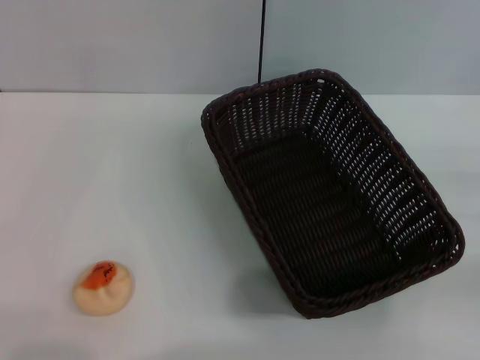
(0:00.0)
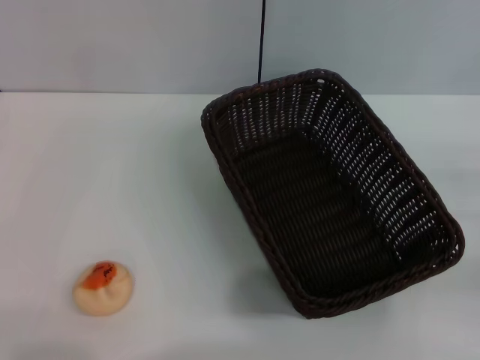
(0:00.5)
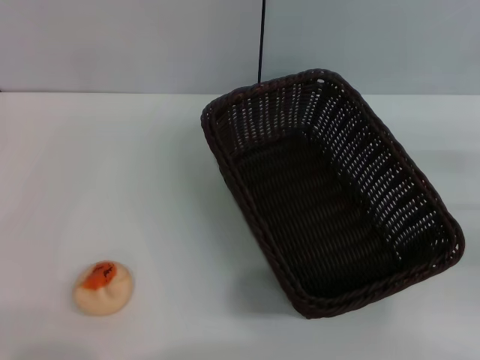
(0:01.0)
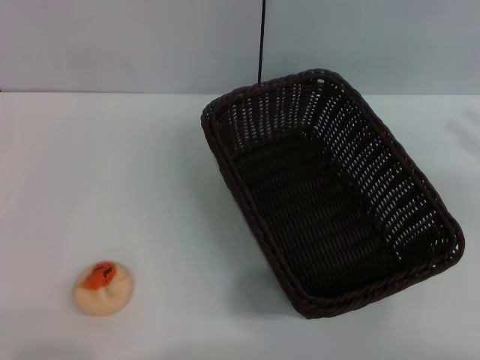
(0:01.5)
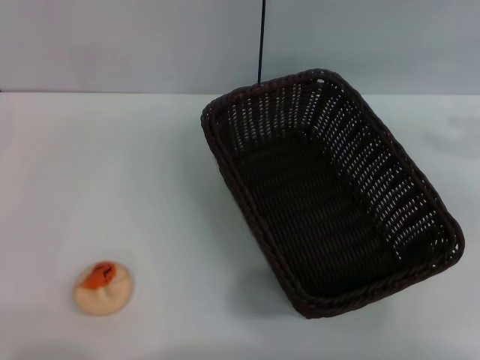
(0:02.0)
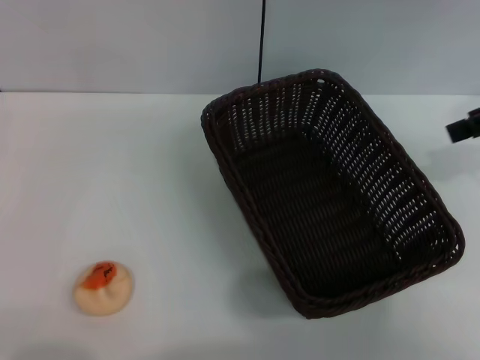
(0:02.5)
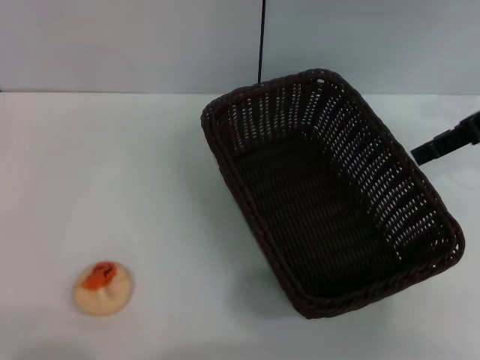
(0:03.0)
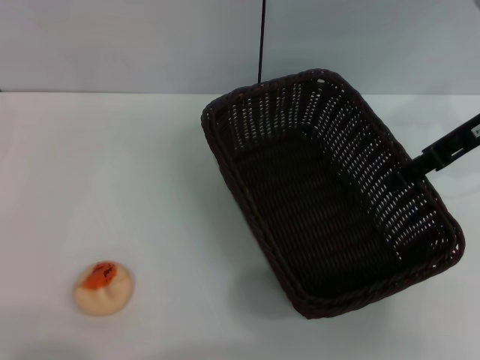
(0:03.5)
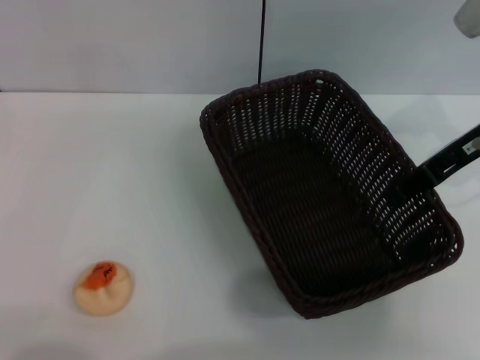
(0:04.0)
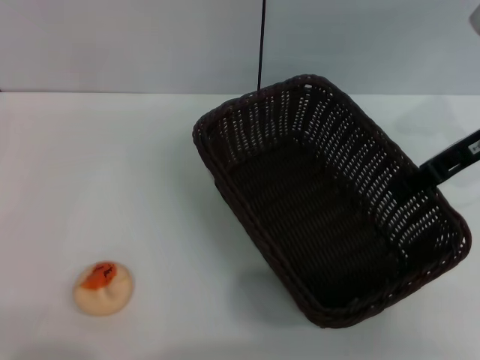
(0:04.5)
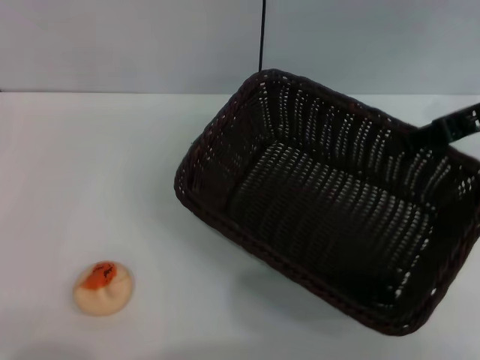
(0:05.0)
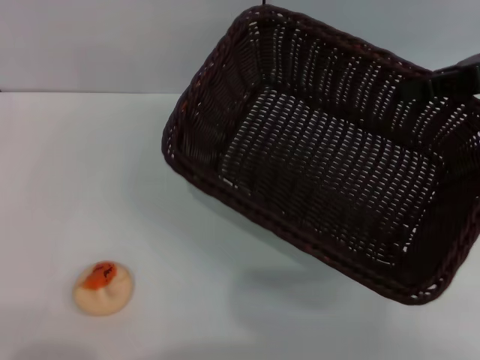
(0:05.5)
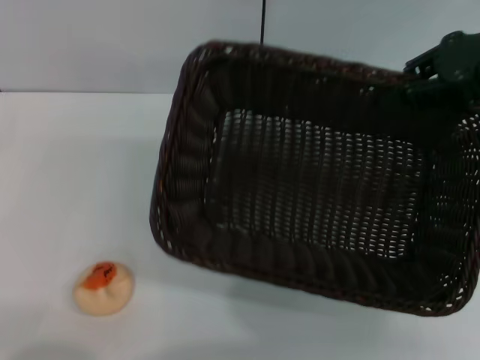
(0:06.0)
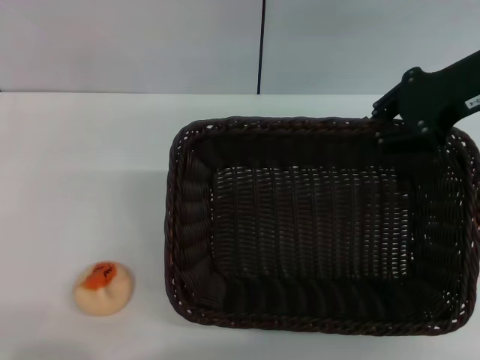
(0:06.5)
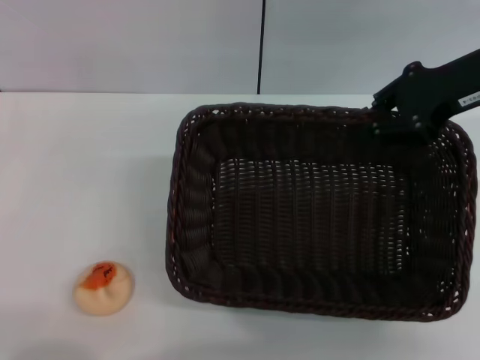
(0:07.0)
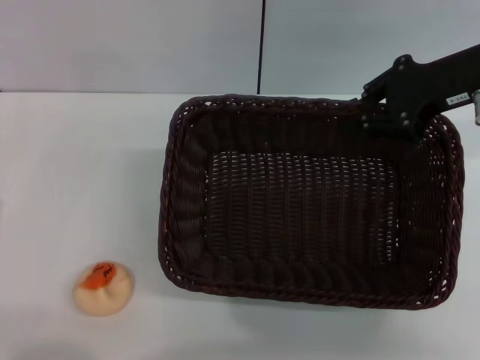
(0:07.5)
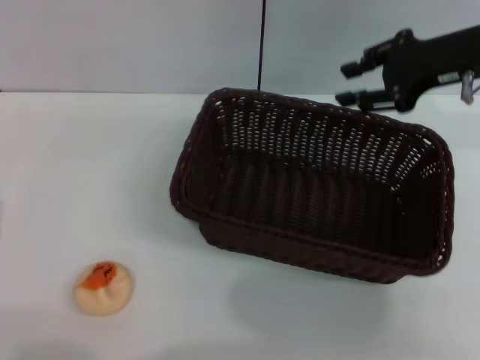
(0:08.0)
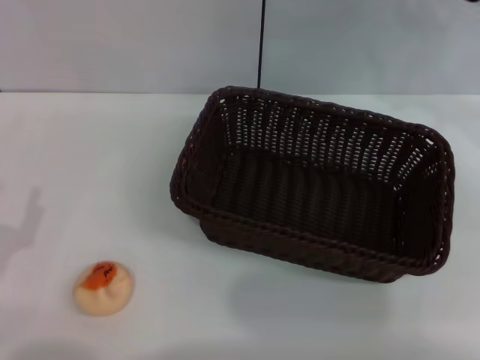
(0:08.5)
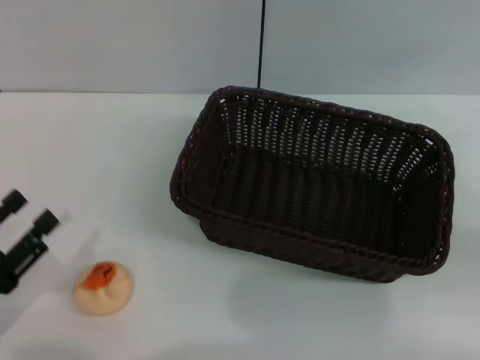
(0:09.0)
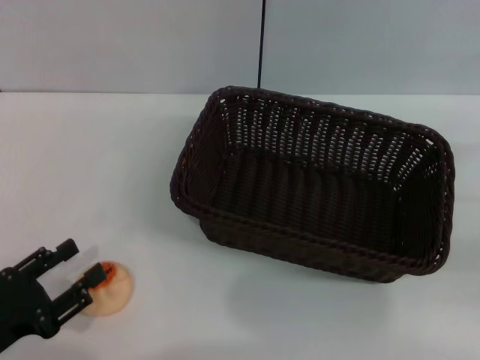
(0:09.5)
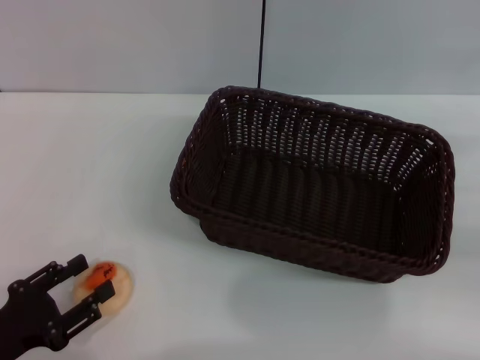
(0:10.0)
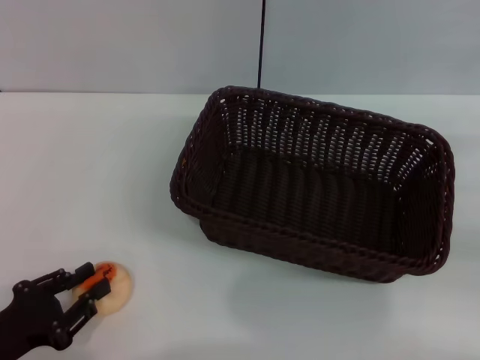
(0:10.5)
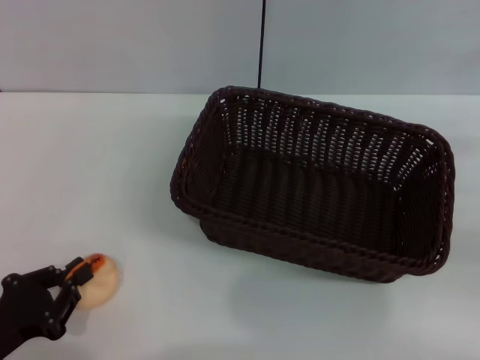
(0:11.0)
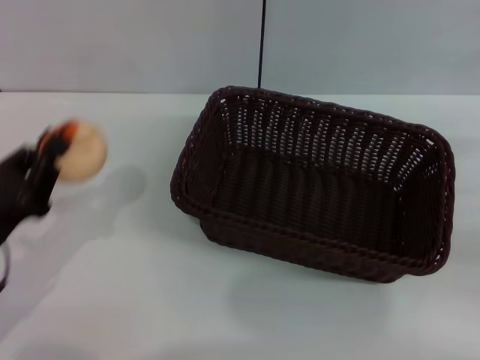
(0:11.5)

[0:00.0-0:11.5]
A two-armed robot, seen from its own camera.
Step, 0:00.0 to 0:07.5: Move the basket to the center of view with the right gripper.
Step, 0:08.5 to 0:11.0: Pick up the egg yolk pastry with the left gripper.
0:02.0 to 0:04.0: The right gripper moves to the left, downward and forward, roughly 15 cm.
0:04.0 to 0:06.0: The right gripper is displaced upward by approximately 5 cm, and closes its fingers.
0:06.0 to 0:07.5: The right gripper ends up about 5 cm from where it was.
0:07.5 to 0:09.5: The right gripper moves to the right, backward and downward, some 20 cm, and opens.
0:09.5 to 0:11.5: The left gripper is displaced forward by roughly 5 cm, and closes its fingers.

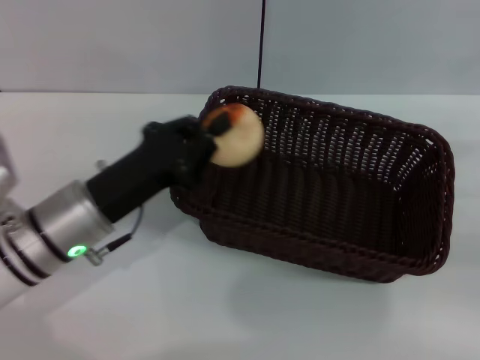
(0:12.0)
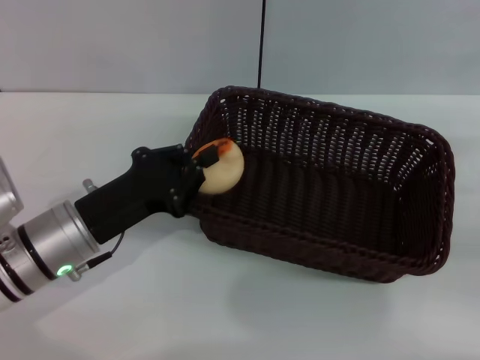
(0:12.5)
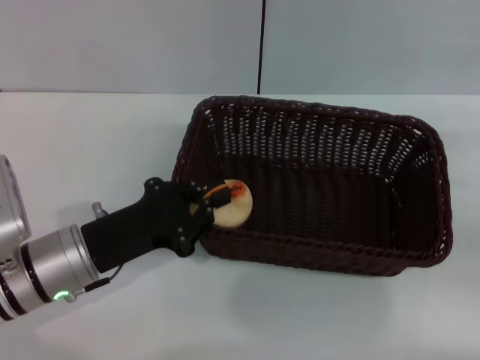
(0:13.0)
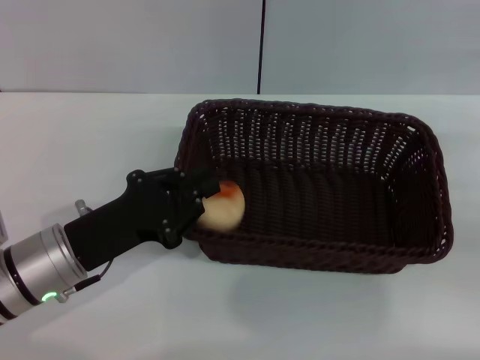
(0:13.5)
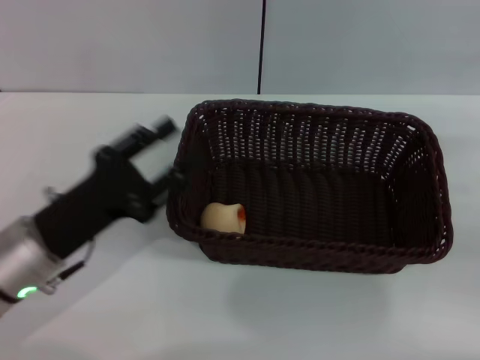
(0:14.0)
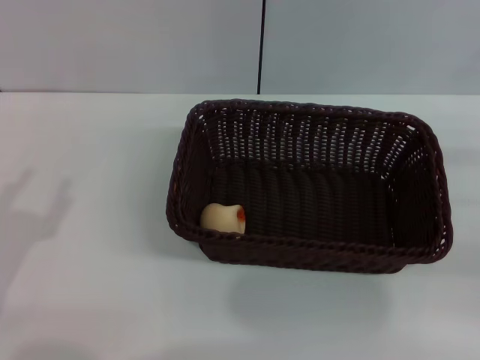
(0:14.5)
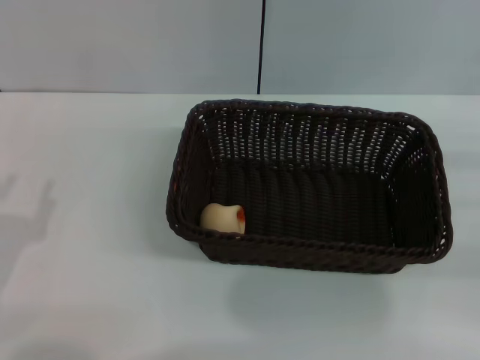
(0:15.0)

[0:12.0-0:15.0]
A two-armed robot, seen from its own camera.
Step, 0:12.0 to 0:13.5: Place the egg yolk pastry into the basket with the left gripper.
0:12.0 to 0:13.5: There are only small adjustments of the grippers.
0:13.5 to 0:15.0: The left gripper travels to the left and backward by about 15 cm, and opens up.
